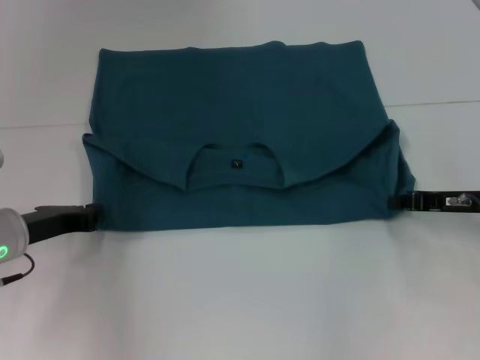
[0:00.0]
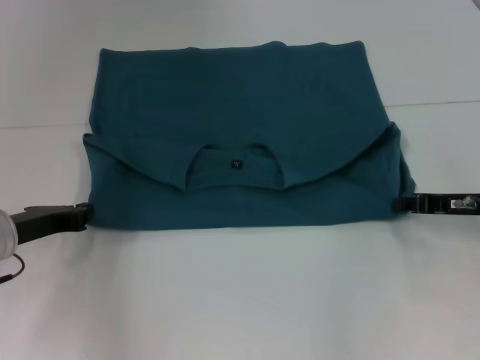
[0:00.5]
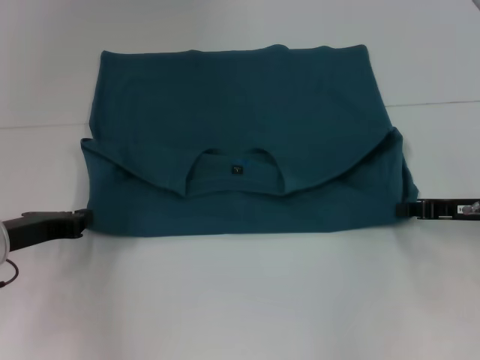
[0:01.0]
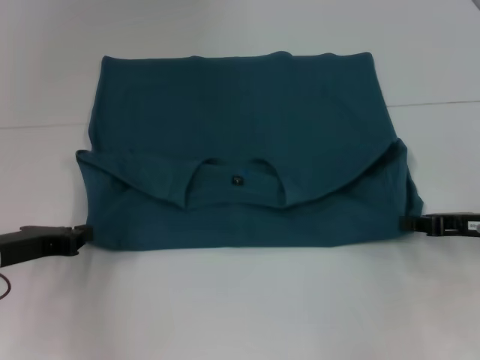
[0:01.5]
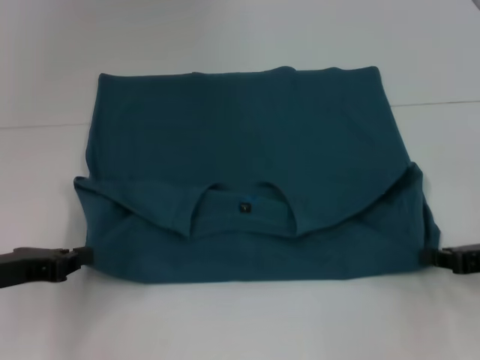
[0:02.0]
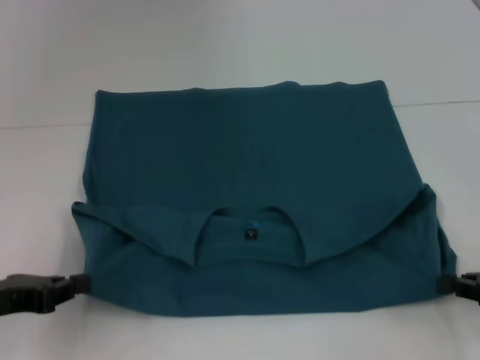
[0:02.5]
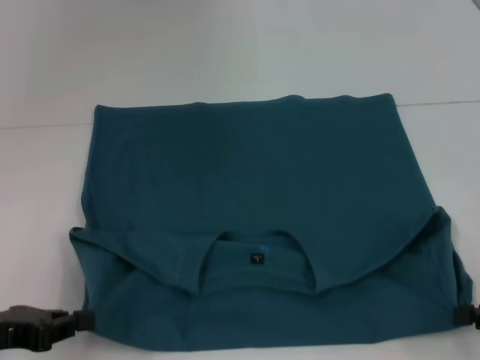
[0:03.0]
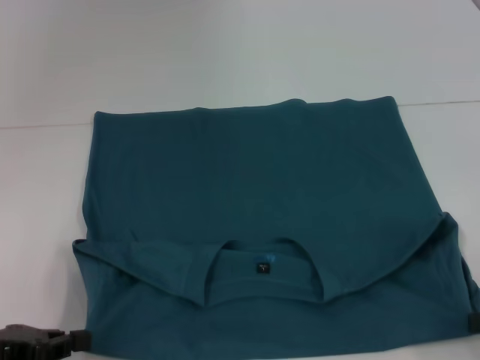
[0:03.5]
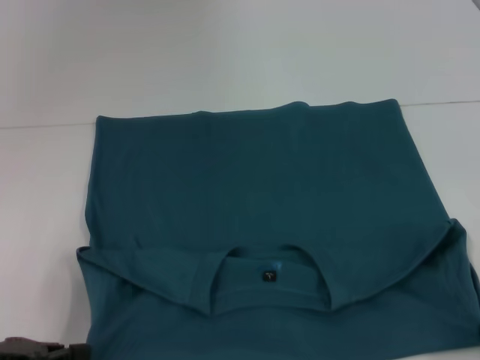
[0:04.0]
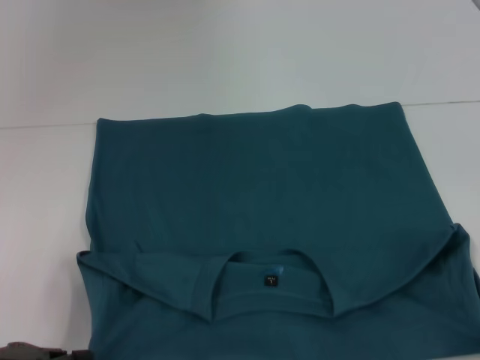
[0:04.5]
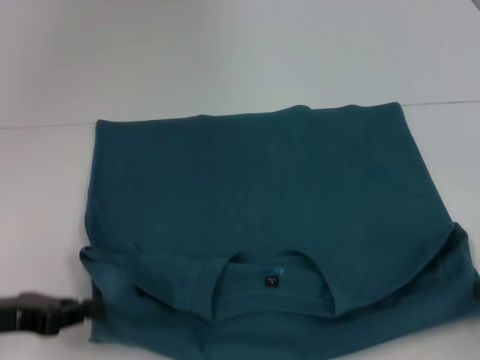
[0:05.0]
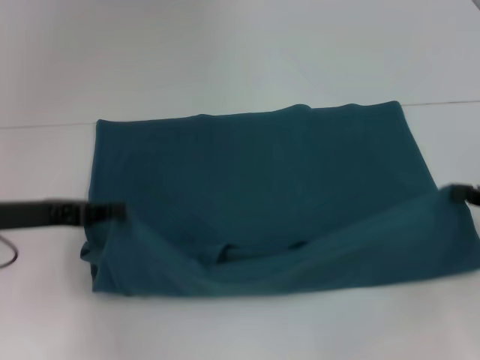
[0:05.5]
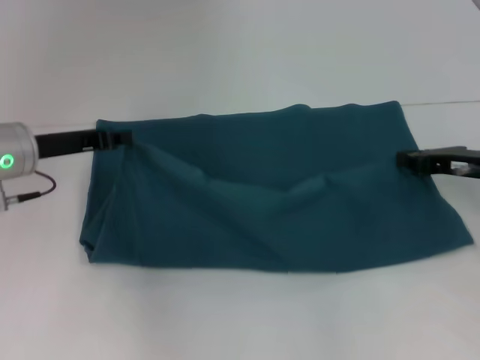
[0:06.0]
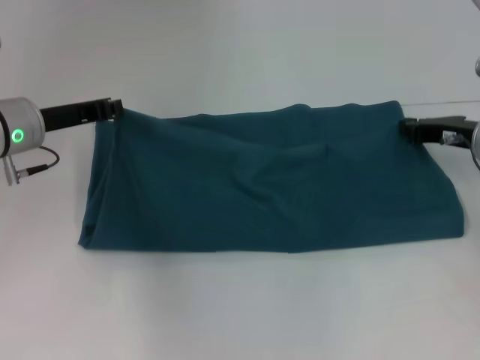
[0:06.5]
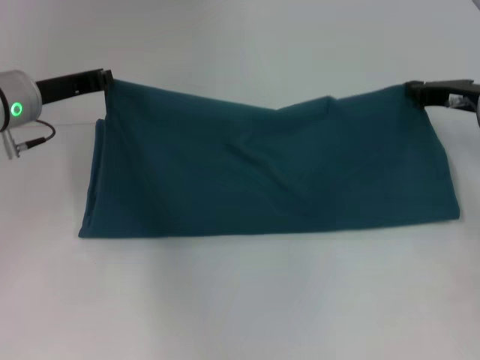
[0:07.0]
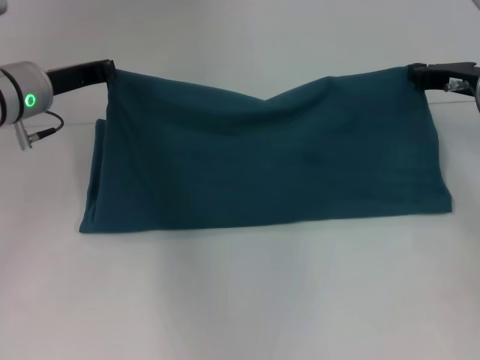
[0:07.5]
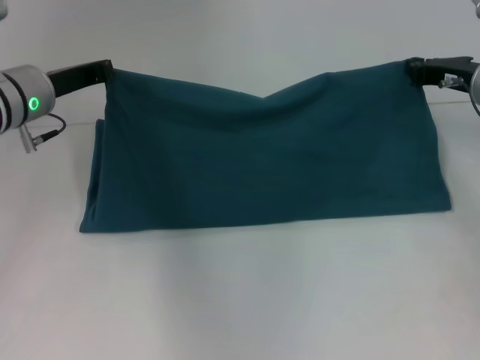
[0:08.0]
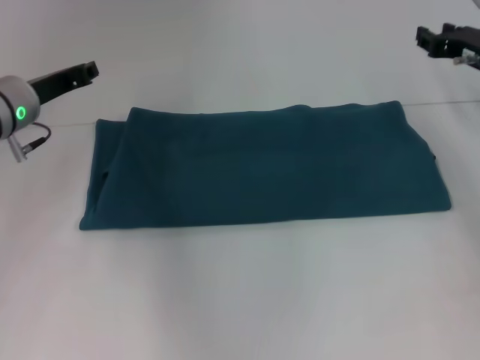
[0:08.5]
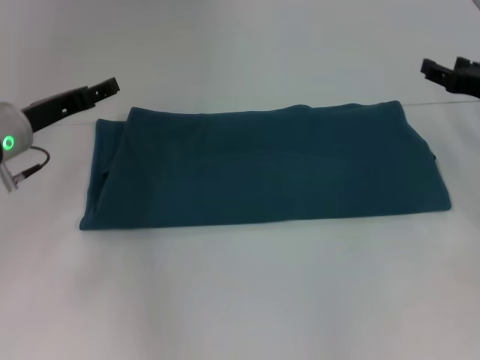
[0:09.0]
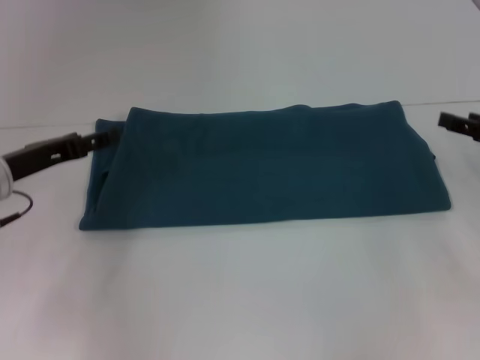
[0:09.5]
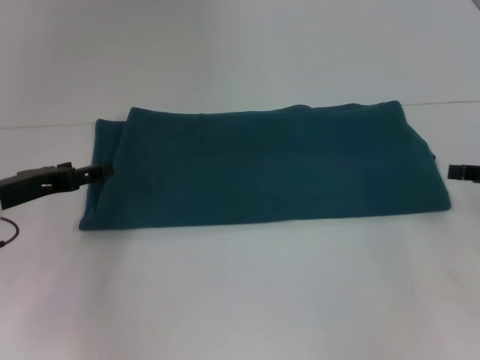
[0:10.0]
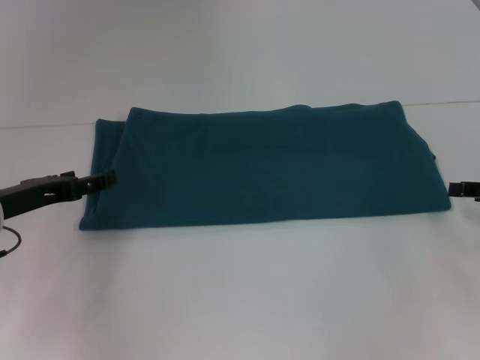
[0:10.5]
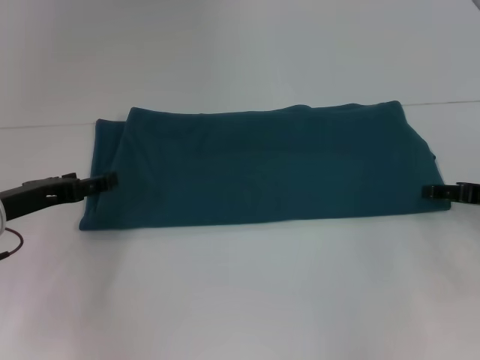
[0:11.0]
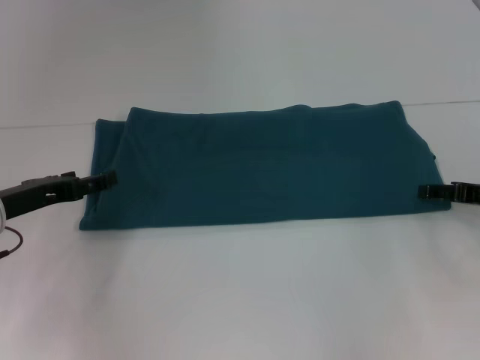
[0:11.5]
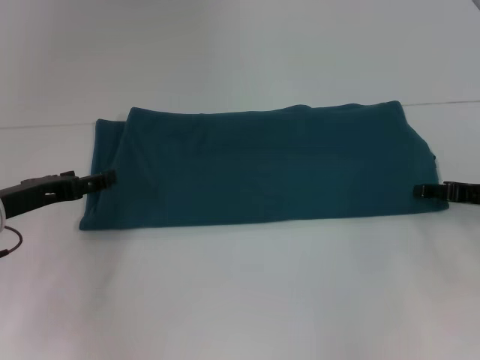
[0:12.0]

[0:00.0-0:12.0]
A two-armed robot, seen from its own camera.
Step, 0:00.0 to 0:04.0: Pull the clothes with your left hand.
Step, 0:00.0 to 0:04.0: Pull the clothes with your right hand.
Step, 0:04.5 to 0:08.5: Fold the clothes to the left.
Step, 0:04.5 to 0:08.5: Fold the clothes to the right.
0:00.0 to 0:02.0: The grippers both shift backward by some 5 cm.
0:02.0 to 0:04.0: Both grippers move backward, some 10 cm.
0:04.0 to 0:06.0: The left gripper goes approximately 15 cm forward; the right gripper heads forward and to the left, covering approximately 20 cm.
0:06.0 to 0:08.0: The right gripper heads forward, covering about 5 cm, while the left gripper ends up some 5 cm from where it was.
0:08.0 to 0:10.0: The left gripper is displaced backward, to the left and downward by about 10 cm, and opens its fingers. Meanwhile the right gripper travels backward and to the right by roughly 15 cm, and opens up.
0:10.0 to 0:12.0: The right gripper ends up about 5 cm from where it was.

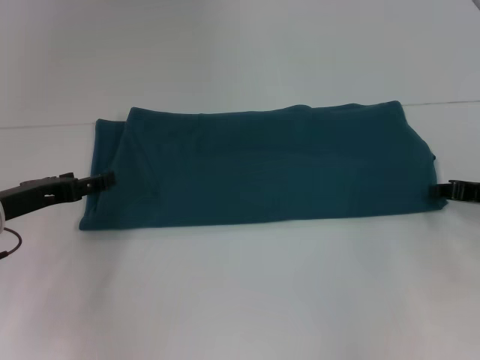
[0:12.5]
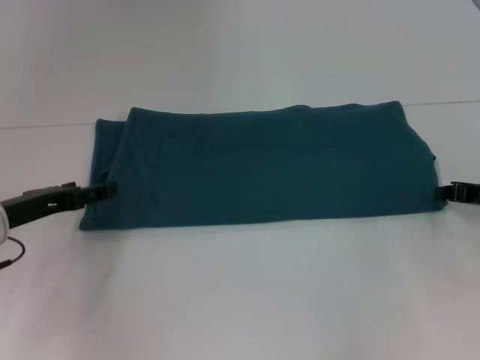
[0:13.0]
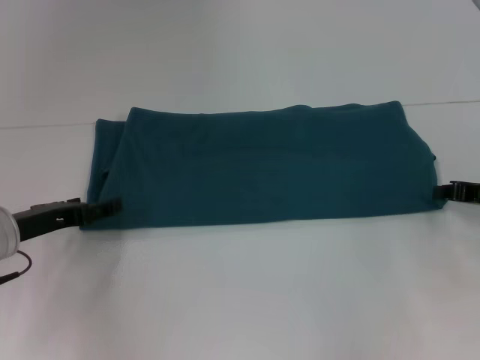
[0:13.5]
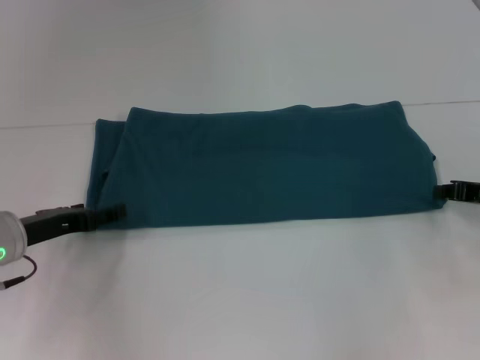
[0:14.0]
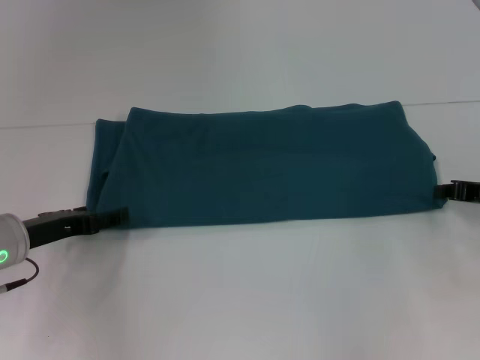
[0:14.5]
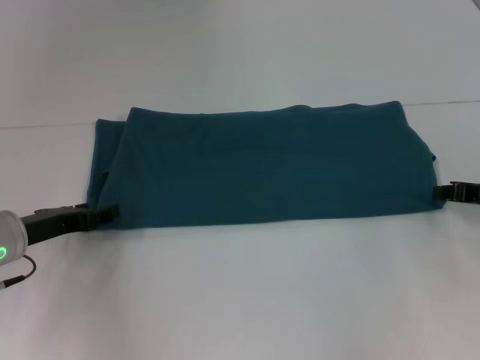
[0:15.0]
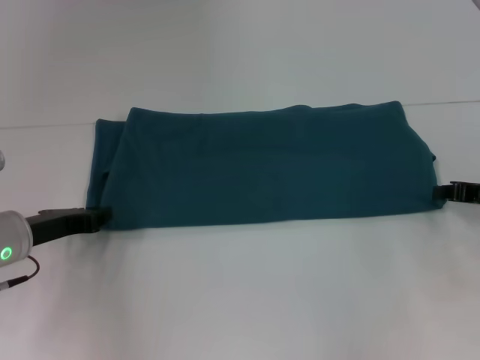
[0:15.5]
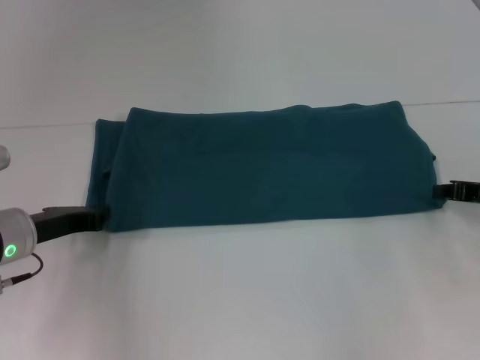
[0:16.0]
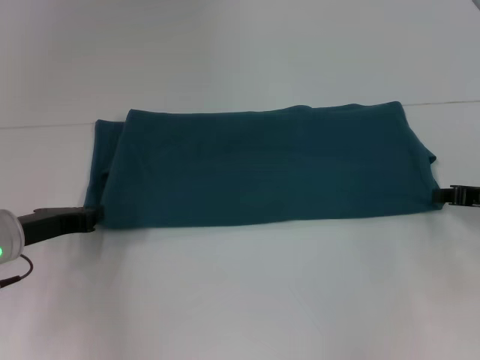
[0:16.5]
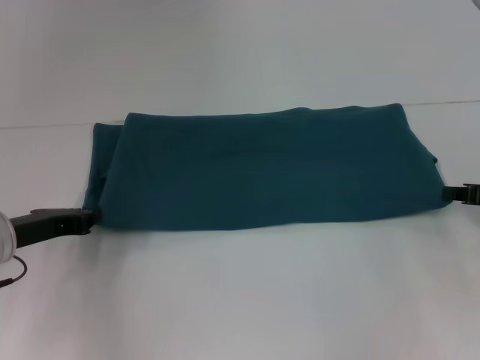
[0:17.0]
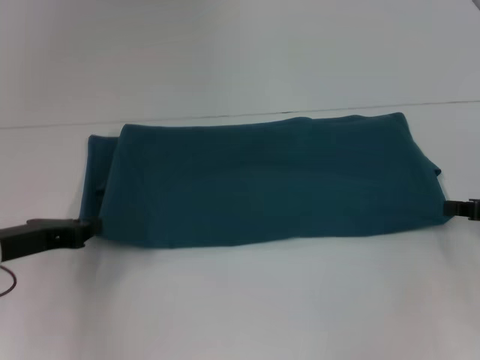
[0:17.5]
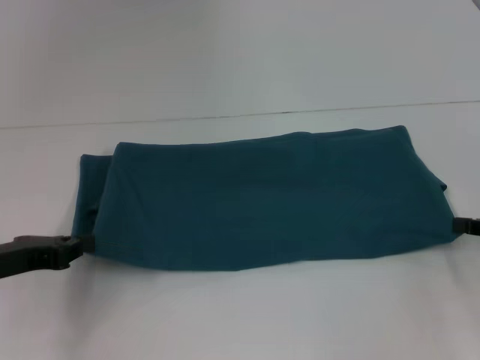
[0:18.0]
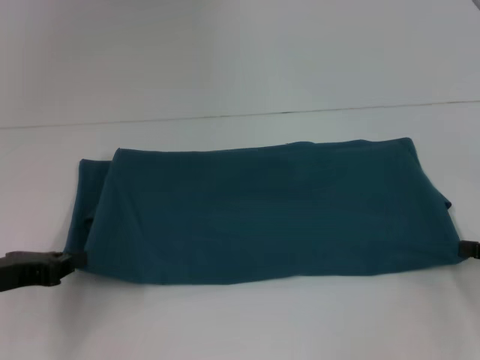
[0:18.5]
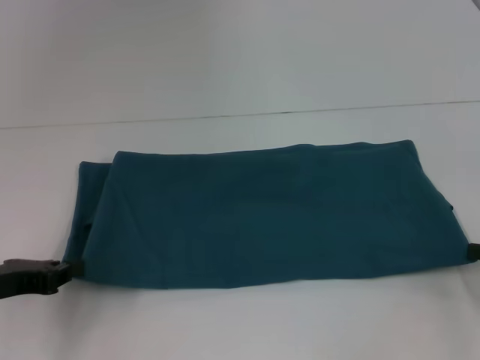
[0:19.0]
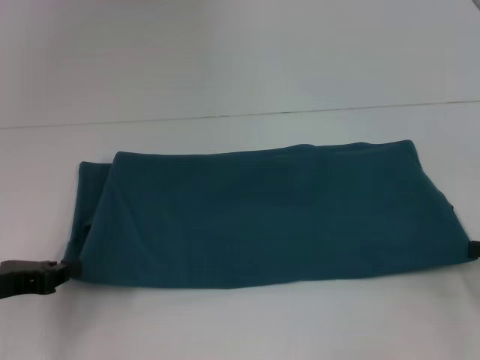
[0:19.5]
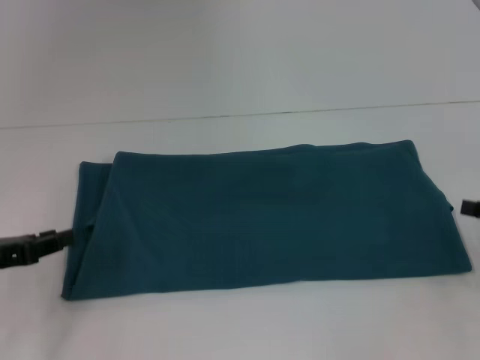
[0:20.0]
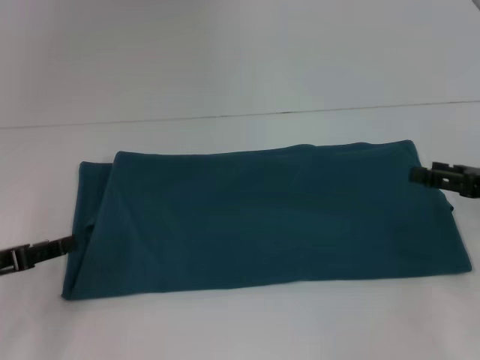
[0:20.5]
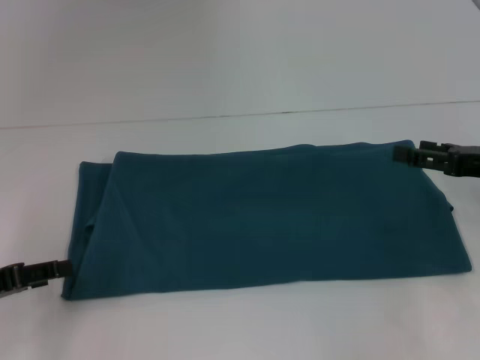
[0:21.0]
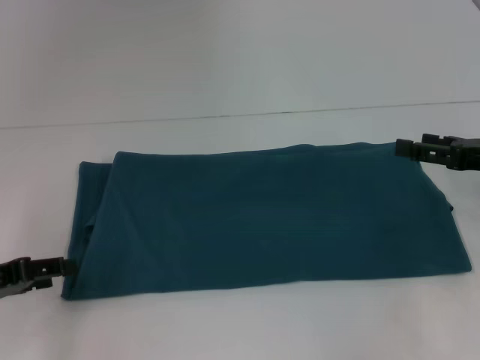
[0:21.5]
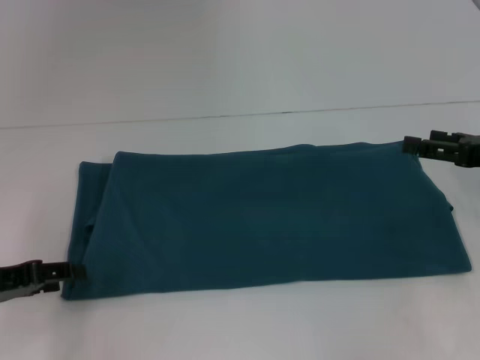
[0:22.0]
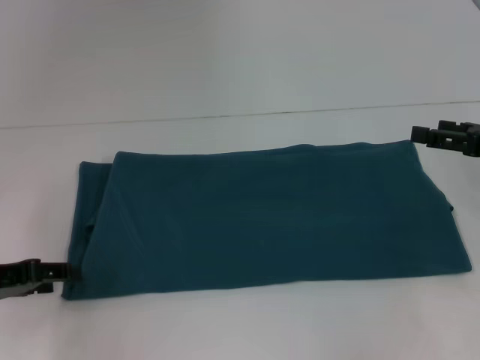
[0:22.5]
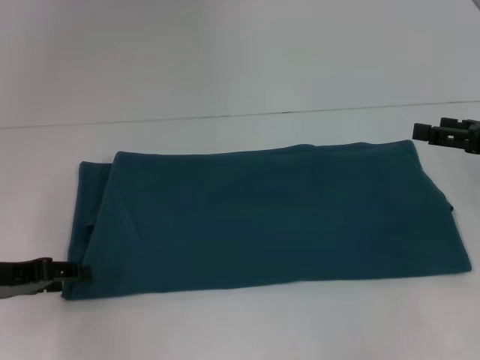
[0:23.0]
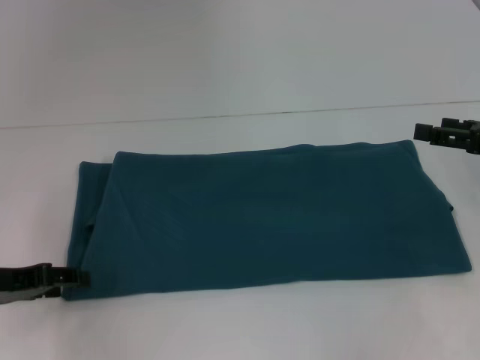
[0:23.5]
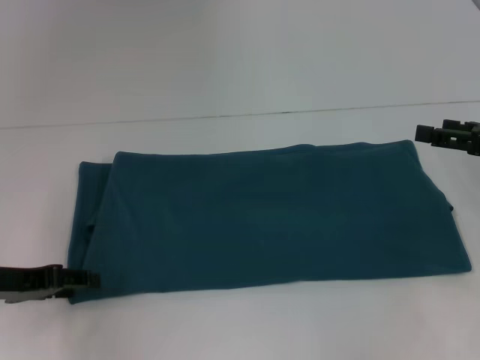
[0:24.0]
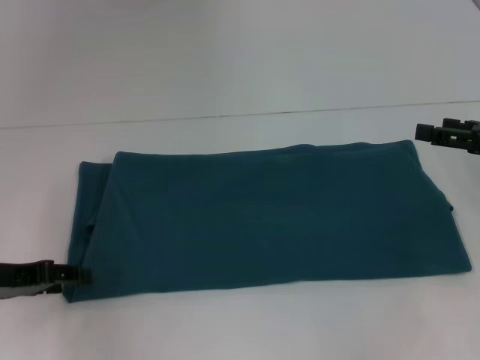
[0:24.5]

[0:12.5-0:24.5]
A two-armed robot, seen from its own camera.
Step, 0:12.5 to 0:19.5: Pull the clothes with your left hand.
Step, 0:12.5 to 0:19.5: Pull the clothes with your right hand.
0:14.5 to 0:16.5: The left gripper closes its fingers.
0:16.5 to 0:18.5: Both grippers travel together backward, approximately 5 cm.
0:18.5 to 0:20.5: The right gripper moves approximately 5 cm, and opens its fingers; the left gripper opens.
0:20.5 to 0:22.5: The grippers make only small movements.
0:22.5 to 0:24.5: There are only small adjustments of the grippers.

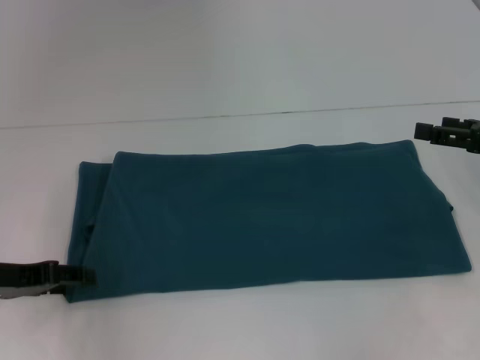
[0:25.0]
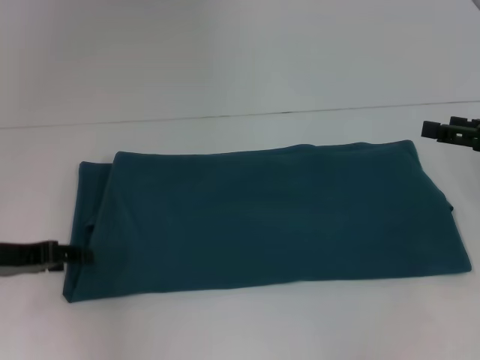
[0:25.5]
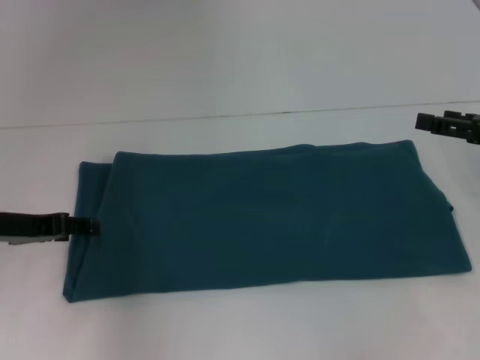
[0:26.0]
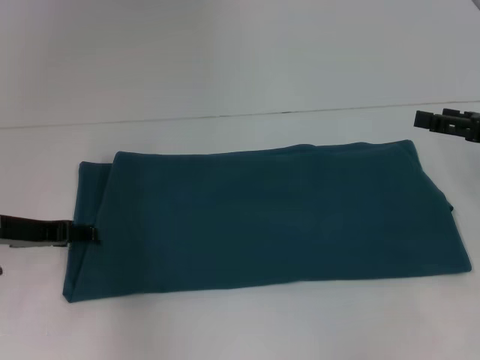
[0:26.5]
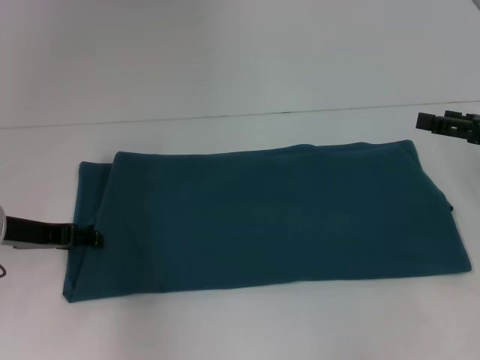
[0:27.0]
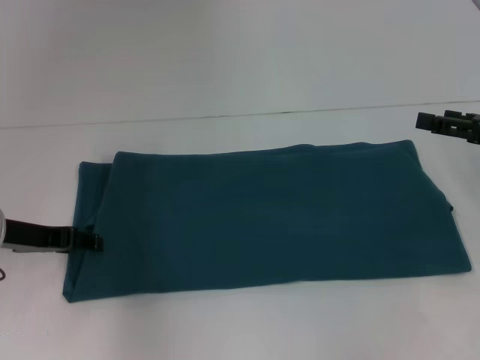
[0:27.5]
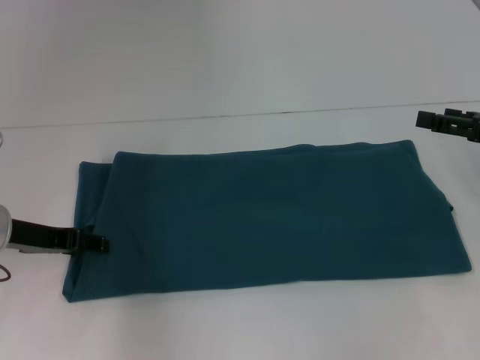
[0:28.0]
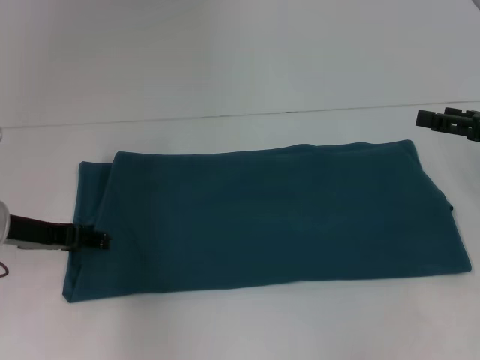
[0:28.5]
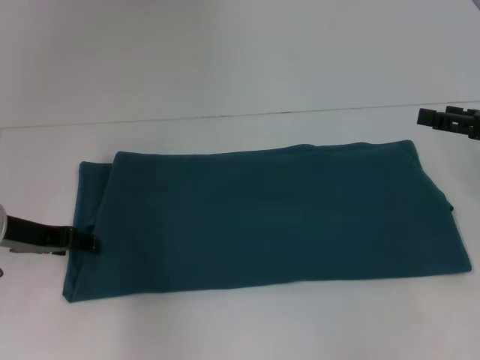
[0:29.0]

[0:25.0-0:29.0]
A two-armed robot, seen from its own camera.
0:25.0 to 0:27.0: The left gripper changes place by roughly 5 cm.
0:27.0 to 0:29.0: Both grippers stay about where they are.
